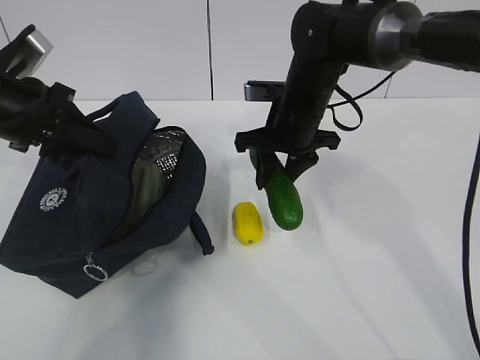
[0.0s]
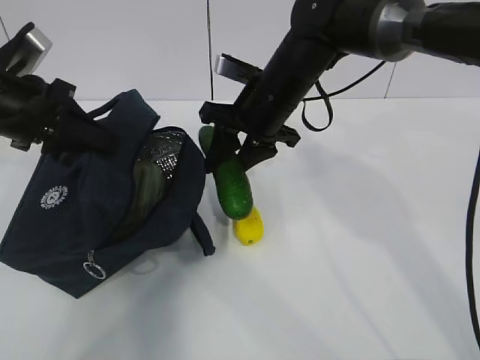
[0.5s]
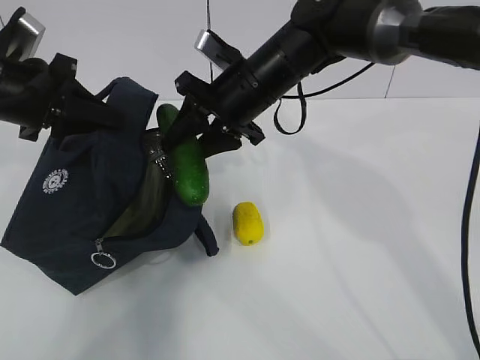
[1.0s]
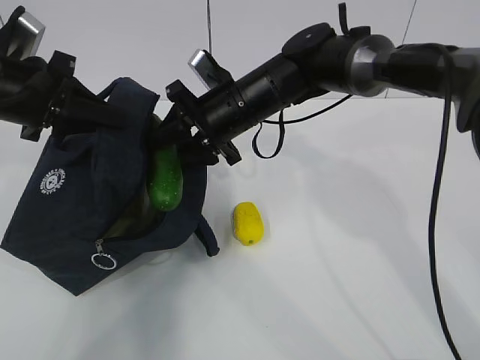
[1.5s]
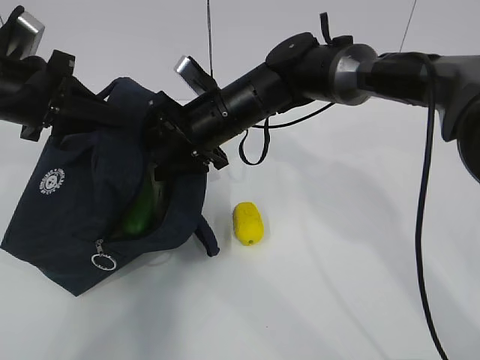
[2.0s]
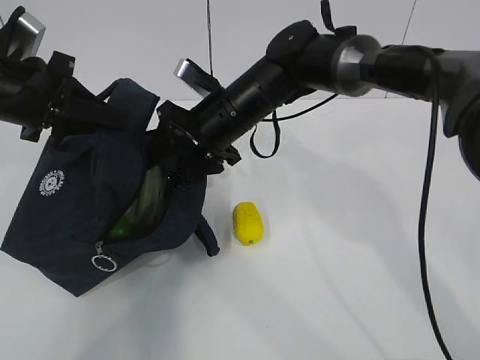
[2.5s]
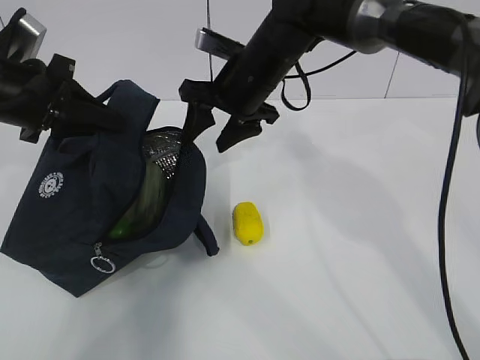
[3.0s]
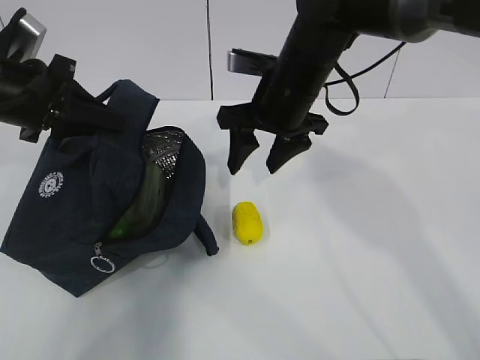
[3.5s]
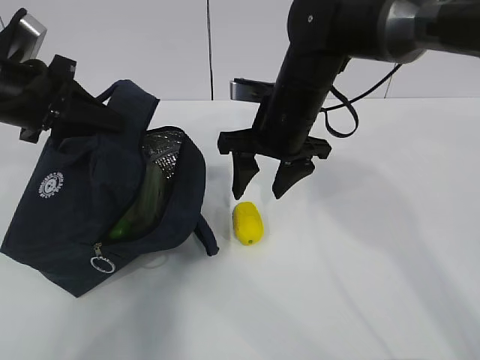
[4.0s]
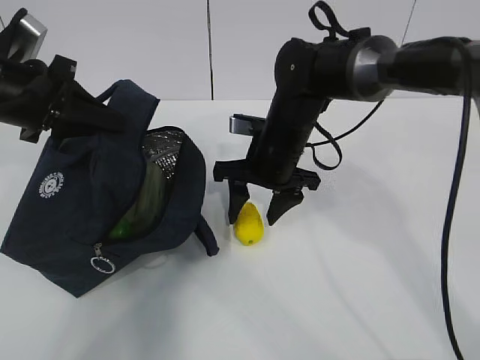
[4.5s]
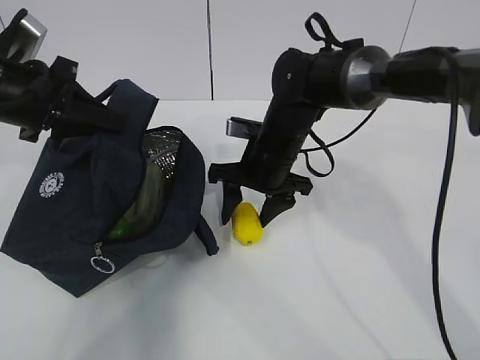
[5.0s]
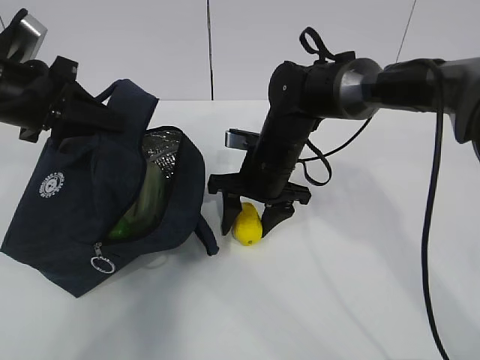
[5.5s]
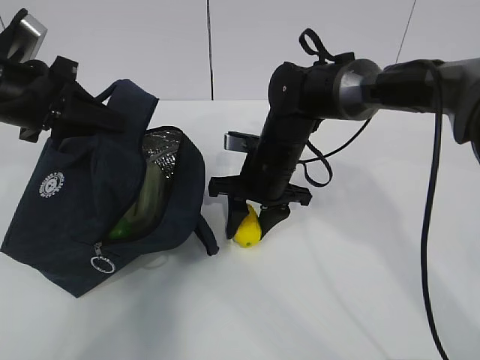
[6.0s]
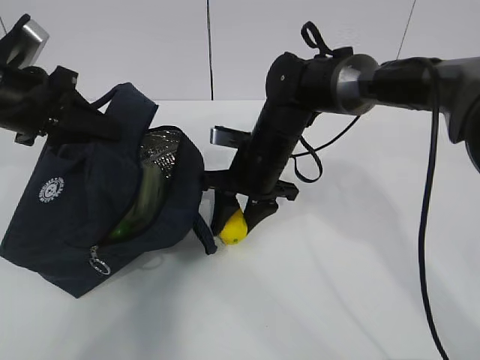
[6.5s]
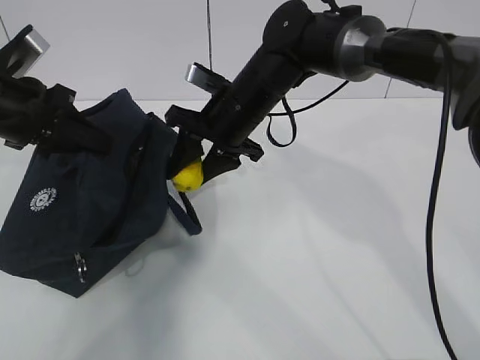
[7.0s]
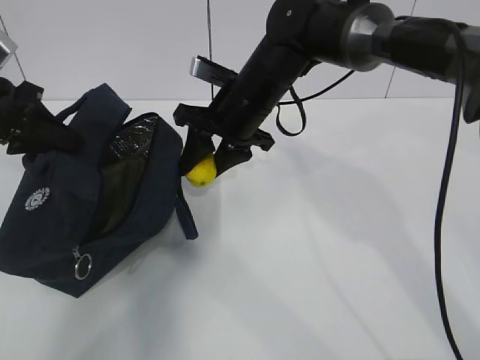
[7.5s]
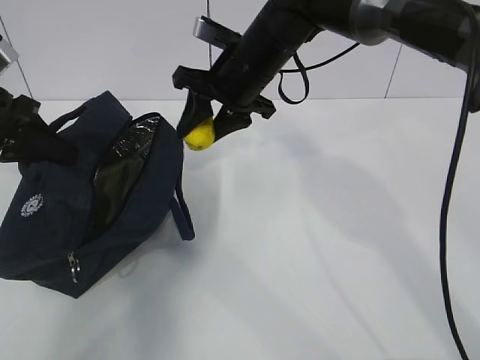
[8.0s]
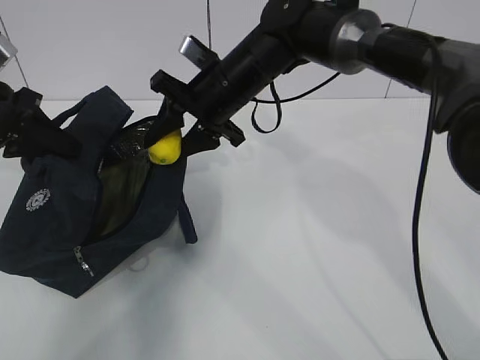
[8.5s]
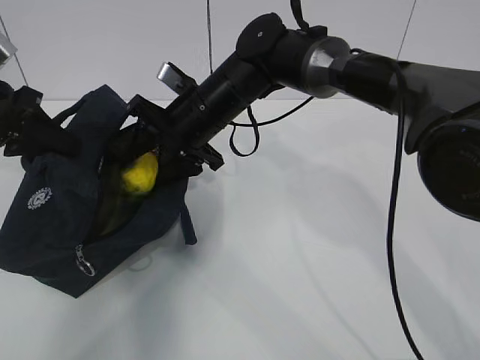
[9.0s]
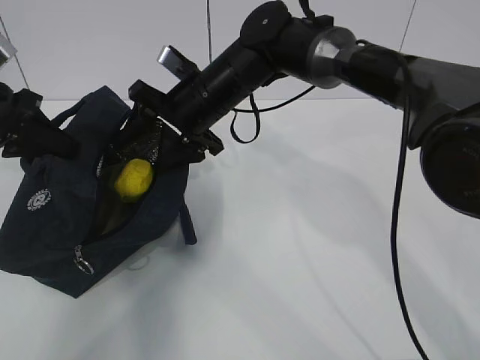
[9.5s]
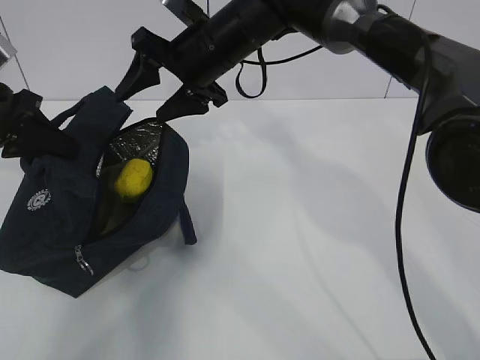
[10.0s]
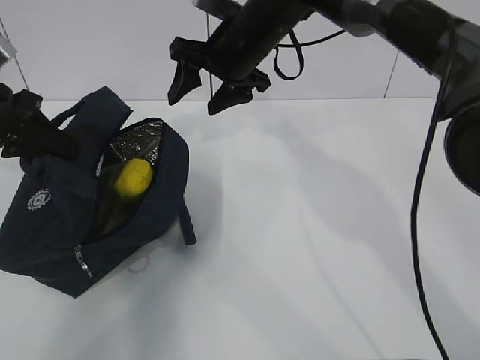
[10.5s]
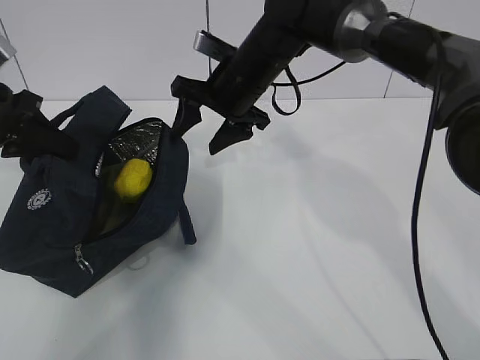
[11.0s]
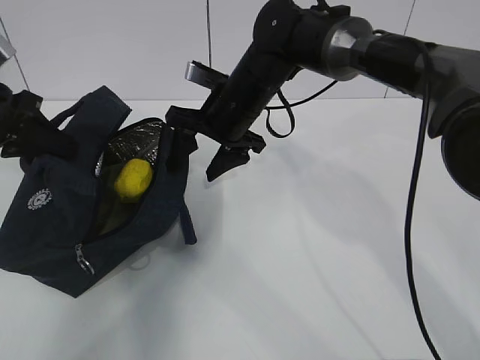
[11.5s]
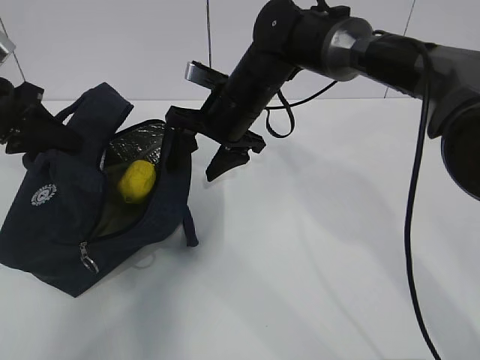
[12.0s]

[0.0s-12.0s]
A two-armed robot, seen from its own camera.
Step, 3.0s to 5.5s: Grab the lunch bag with your right hand.
Step, 6.0s to 8.0s: Move the lunch bag to the left.
0.0s to 2.0s: The right gripper goes roughly 10 cm to the left.
2.0s to 4.0s: The right gripper travels to the right by some 5 cm.
4.0s to 6.0s: The right gripper is displaced downward by approximately 10 cm.
6.0s to 8.0s: The right gripper shifts about 10 cm upward.
8.0s to 10.0s: The right gripper opens.
10.0s to 12.0s: The right gripper shifts roughly 5 cm downward.

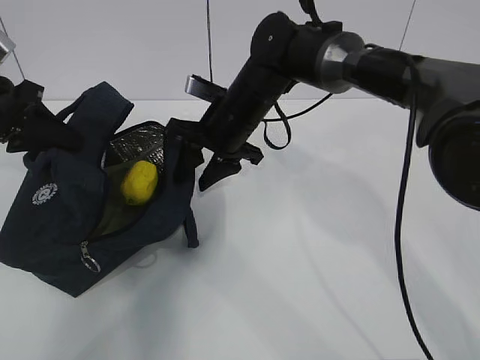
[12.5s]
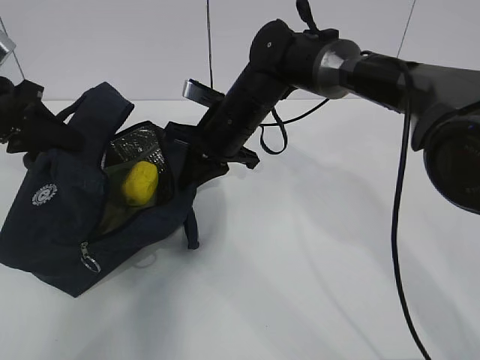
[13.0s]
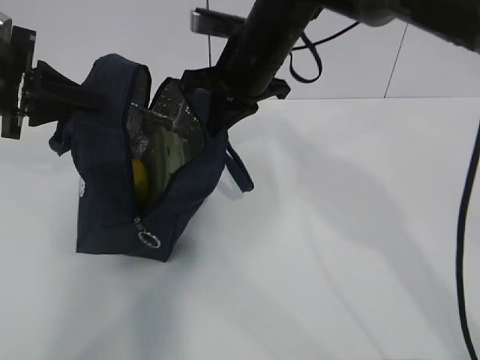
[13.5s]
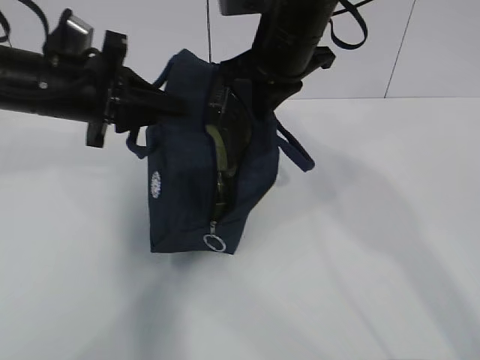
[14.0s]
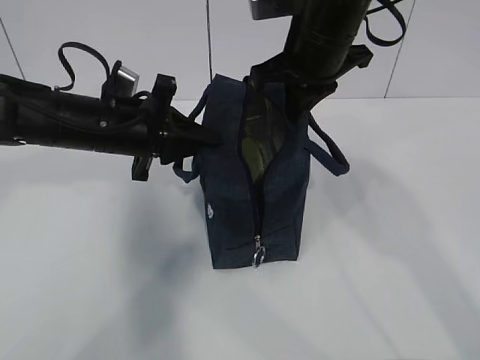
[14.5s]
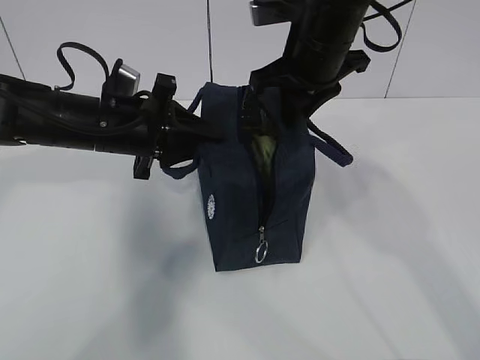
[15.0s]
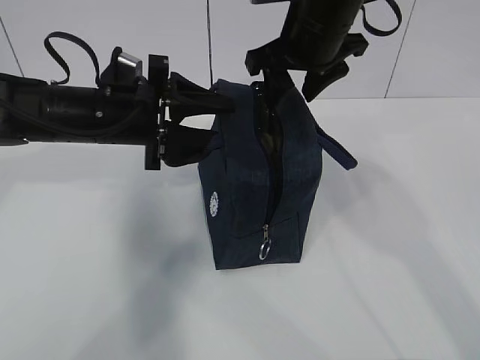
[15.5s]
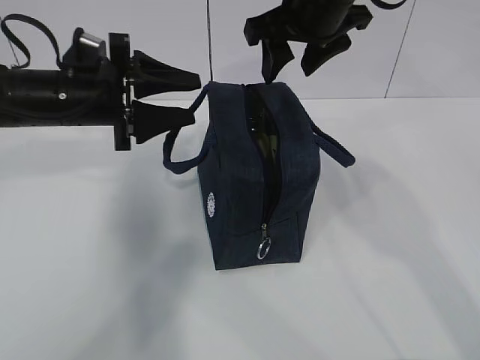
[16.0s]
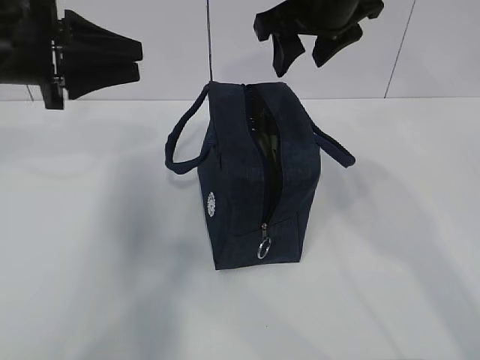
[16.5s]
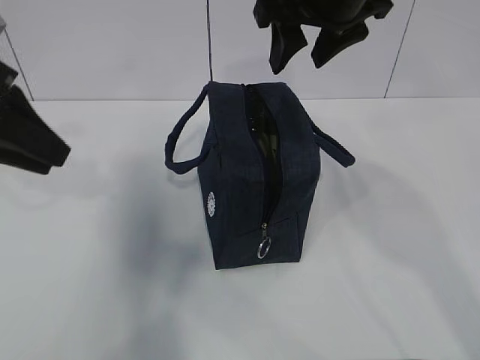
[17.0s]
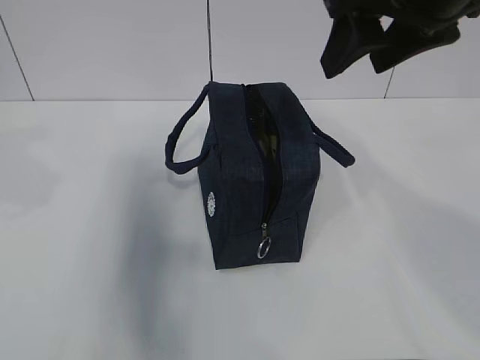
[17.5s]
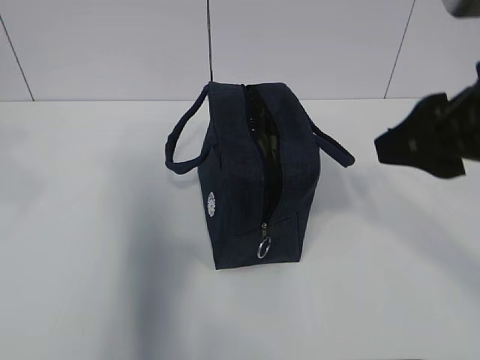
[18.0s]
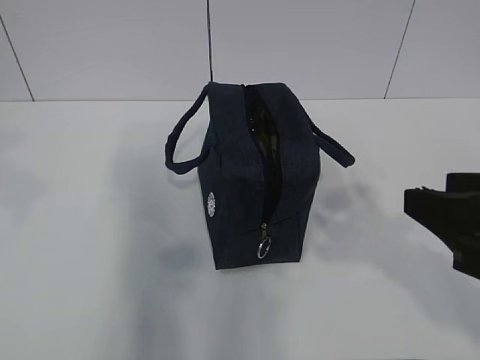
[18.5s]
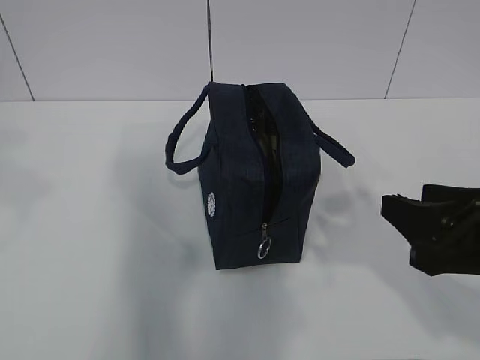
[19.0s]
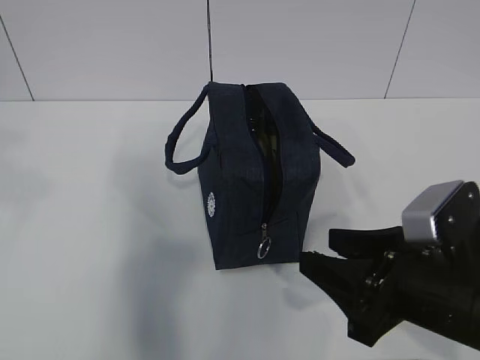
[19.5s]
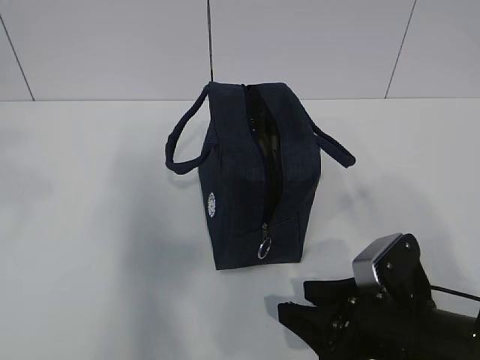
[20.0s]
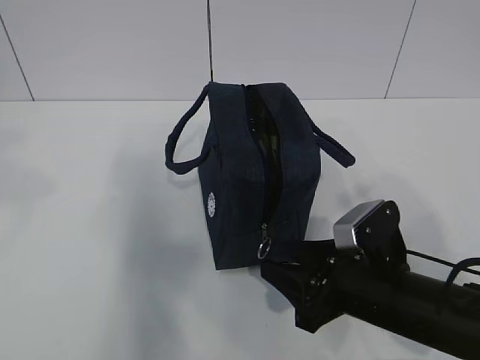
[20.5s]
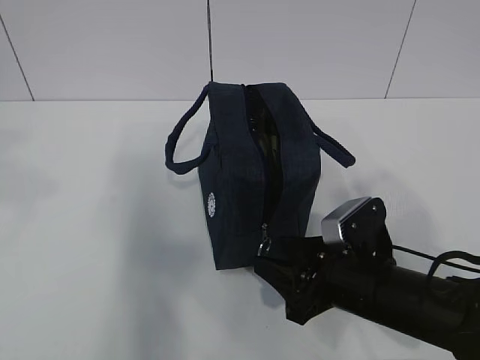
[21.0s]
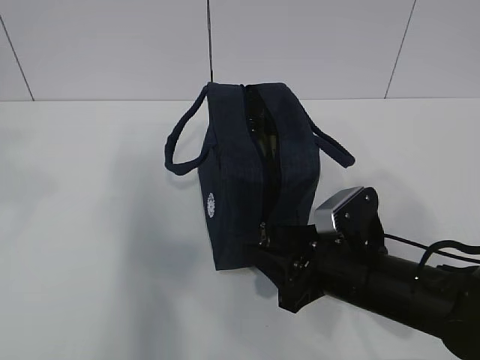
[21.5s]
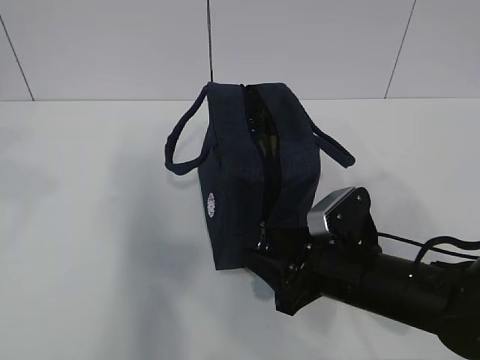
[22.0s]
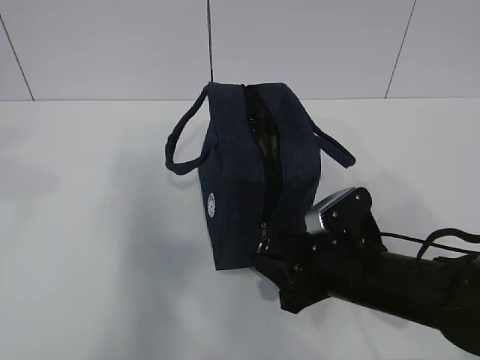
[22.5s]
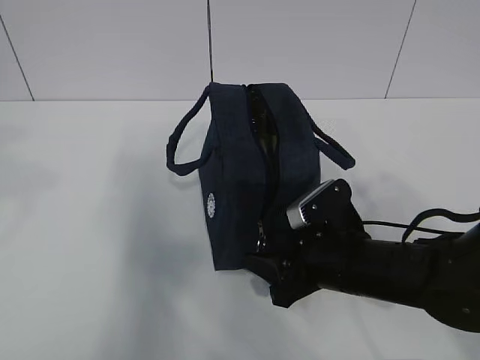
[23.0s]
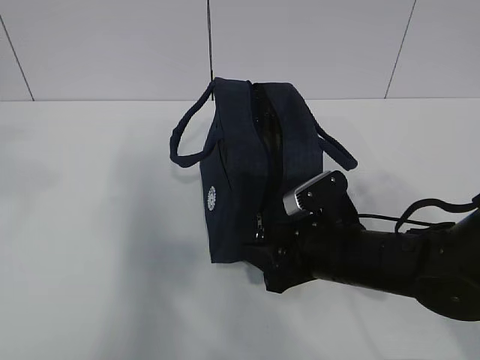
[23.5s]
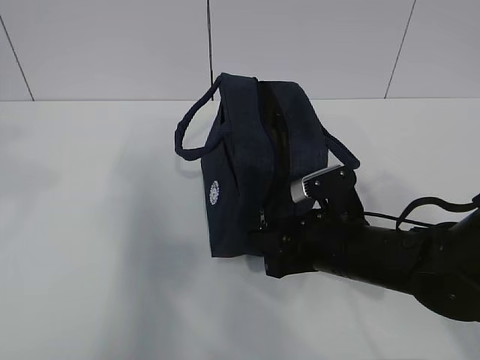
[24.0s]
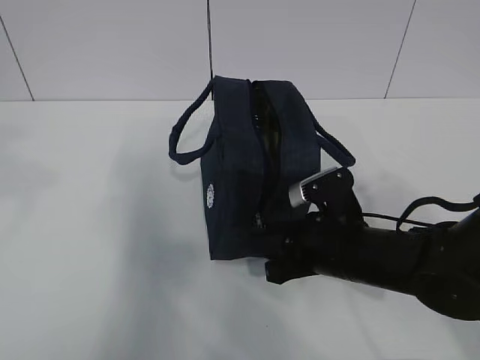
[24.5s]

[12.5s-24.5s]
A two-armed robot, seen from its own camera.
12.5s to 14.5s: The left gripper moves to the right, about 15 cm. Meanwhile the right gripper shifts roughly 15 cm upward and to the right, and closes up.
14.5s to 16.5s: The left gripper shifts some 10 cm upward and to the left, and opens. The right gripper opens its fingers.
16.5s to 18.5s: The right gripper travels backward and to the right by approximately 30 cm. The left gripper shifts approximately 25 cm backward and upward.
18.5s to 20.5s: The right gripper is displaced downward, forward and to the left by some 20 cm.
20.5s to 24.5s: The grippers make only small movements.

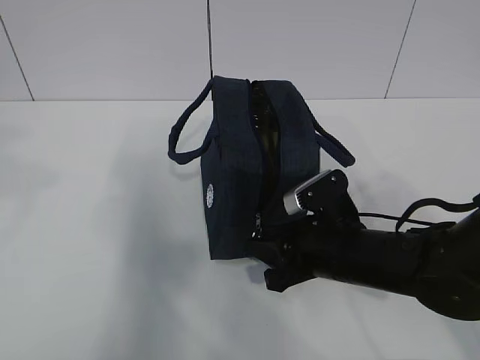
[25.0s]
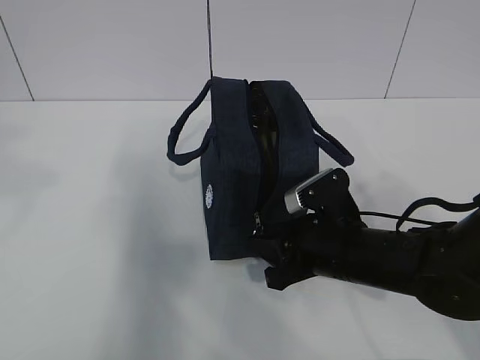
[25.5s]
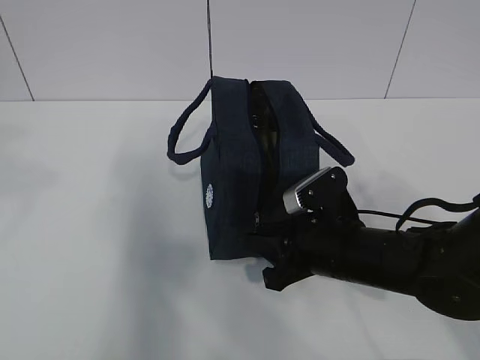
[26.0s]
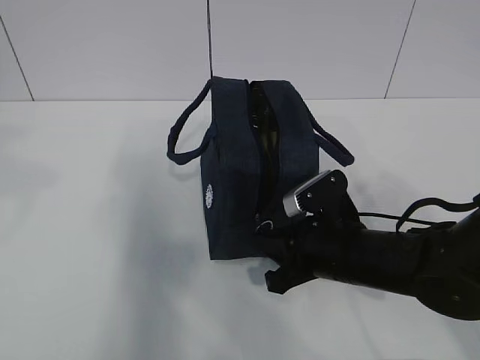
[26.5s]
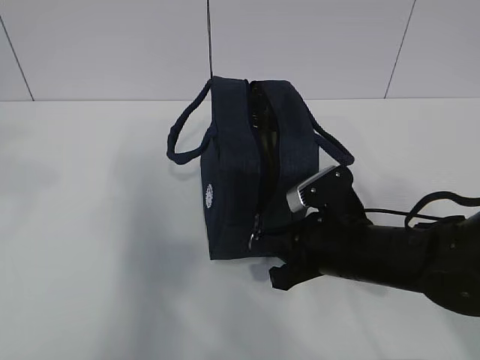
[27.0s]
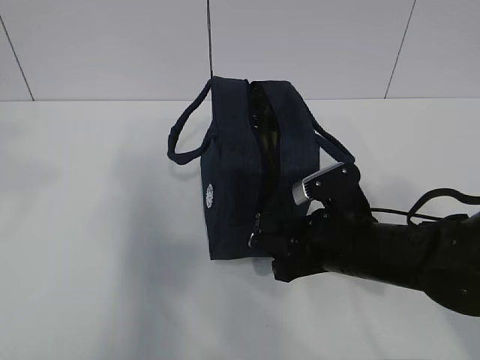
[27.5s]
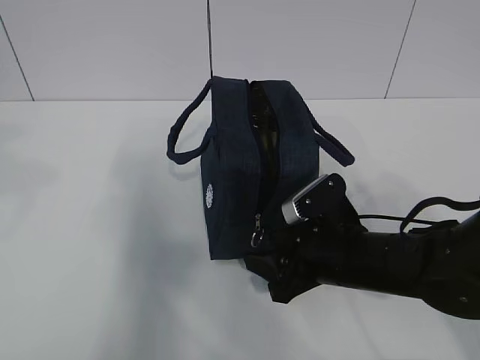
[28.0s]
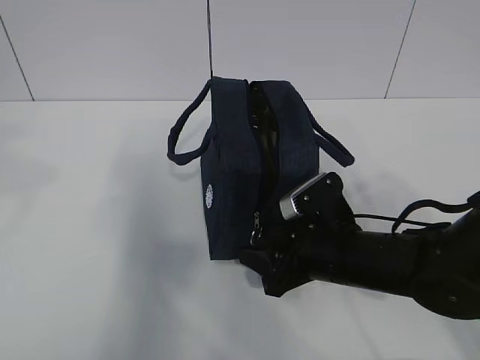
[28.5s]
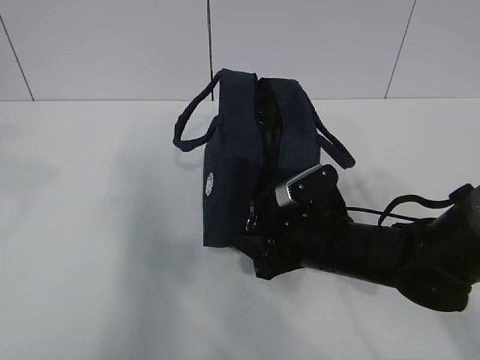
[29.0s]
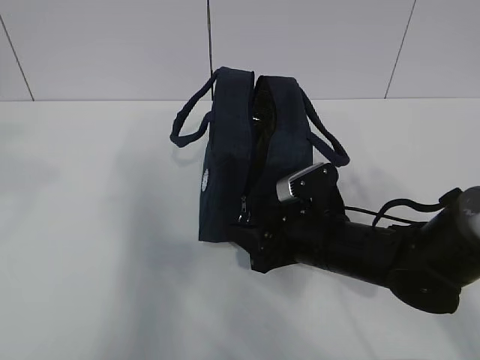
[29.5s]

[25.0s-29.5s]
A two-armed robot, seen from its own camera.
25.0s to 27.0s: The right gripper closes up.
27.0s to 29.5s: The right gripper opens.
